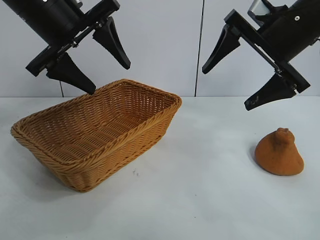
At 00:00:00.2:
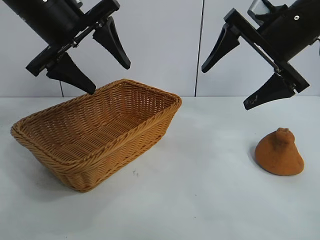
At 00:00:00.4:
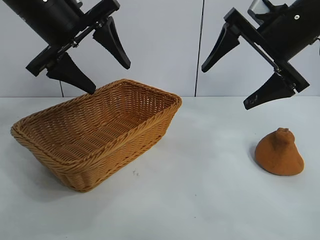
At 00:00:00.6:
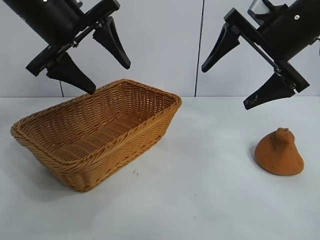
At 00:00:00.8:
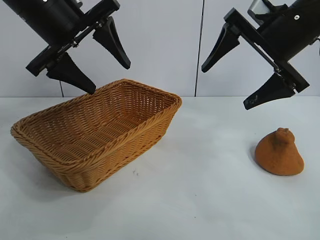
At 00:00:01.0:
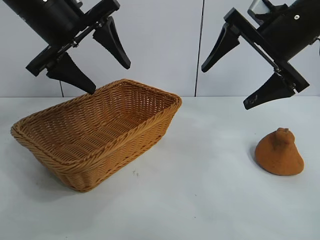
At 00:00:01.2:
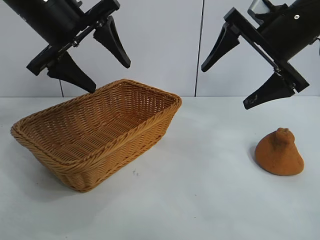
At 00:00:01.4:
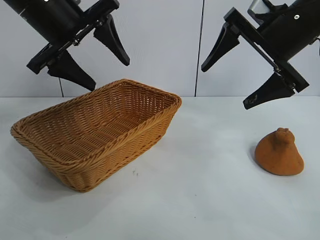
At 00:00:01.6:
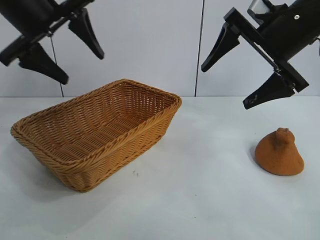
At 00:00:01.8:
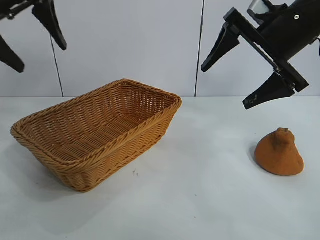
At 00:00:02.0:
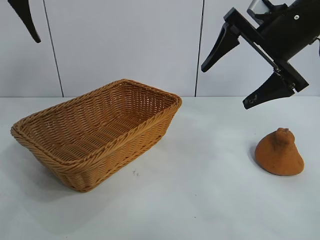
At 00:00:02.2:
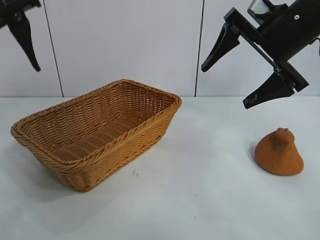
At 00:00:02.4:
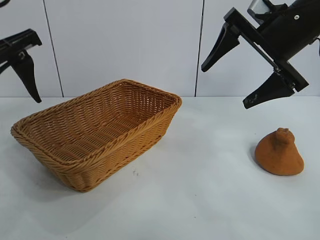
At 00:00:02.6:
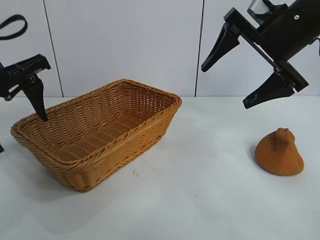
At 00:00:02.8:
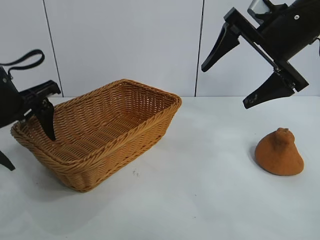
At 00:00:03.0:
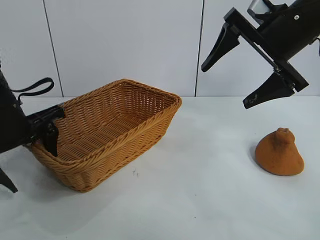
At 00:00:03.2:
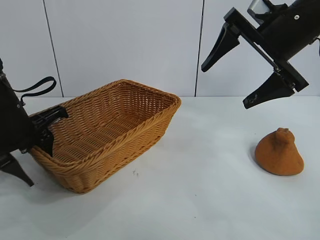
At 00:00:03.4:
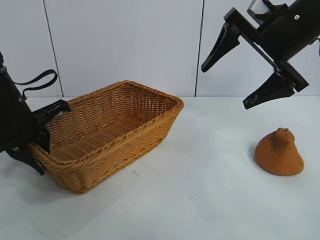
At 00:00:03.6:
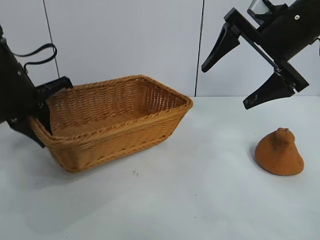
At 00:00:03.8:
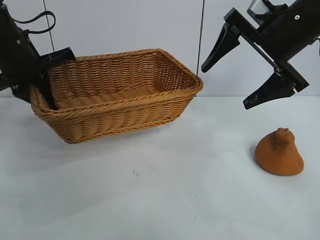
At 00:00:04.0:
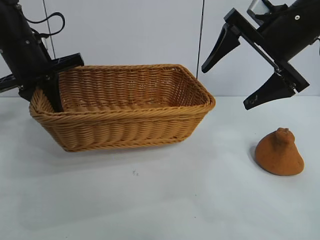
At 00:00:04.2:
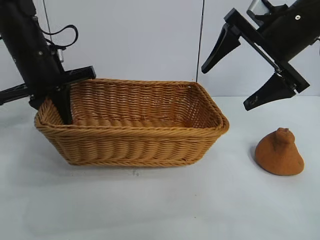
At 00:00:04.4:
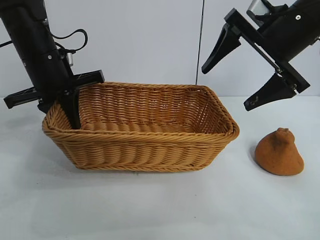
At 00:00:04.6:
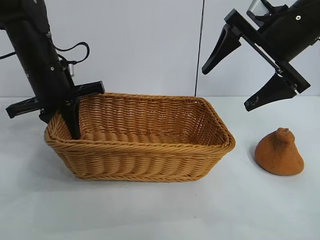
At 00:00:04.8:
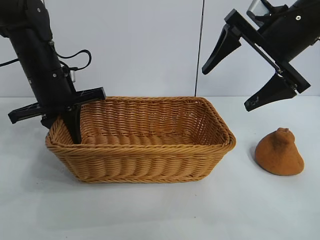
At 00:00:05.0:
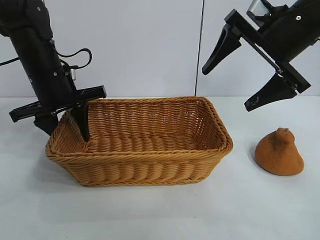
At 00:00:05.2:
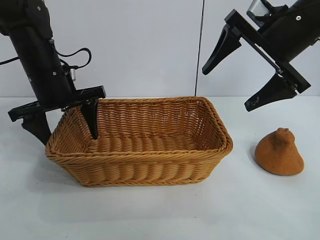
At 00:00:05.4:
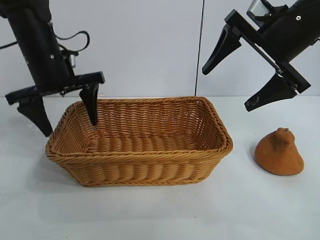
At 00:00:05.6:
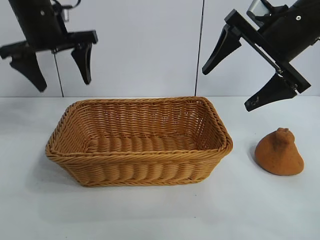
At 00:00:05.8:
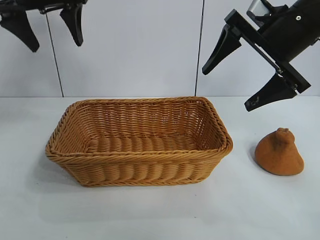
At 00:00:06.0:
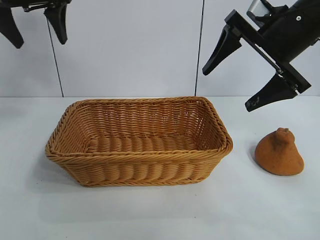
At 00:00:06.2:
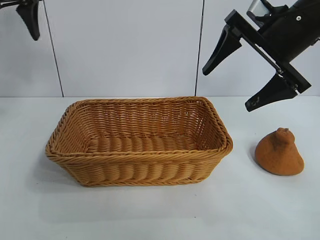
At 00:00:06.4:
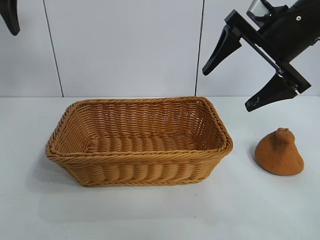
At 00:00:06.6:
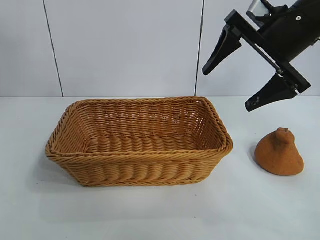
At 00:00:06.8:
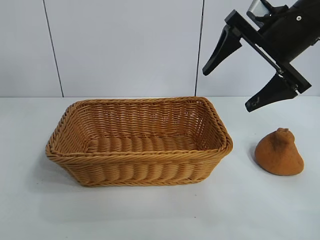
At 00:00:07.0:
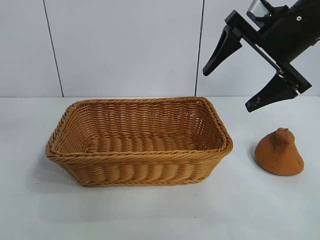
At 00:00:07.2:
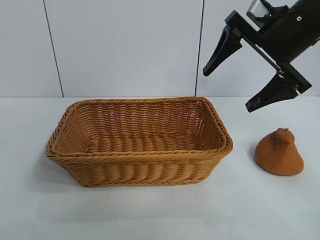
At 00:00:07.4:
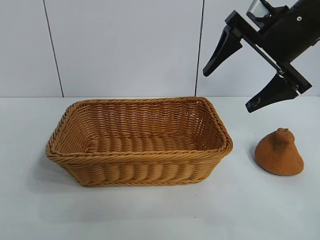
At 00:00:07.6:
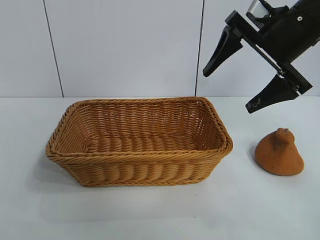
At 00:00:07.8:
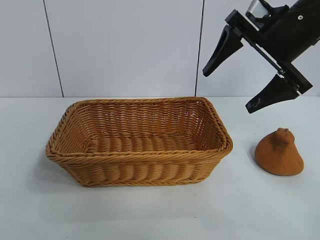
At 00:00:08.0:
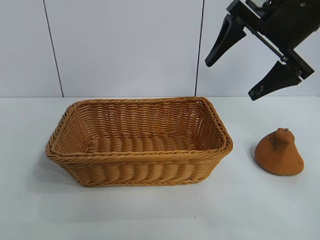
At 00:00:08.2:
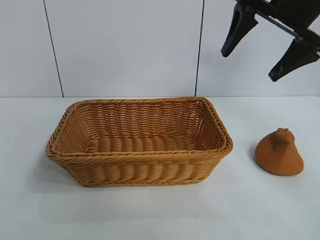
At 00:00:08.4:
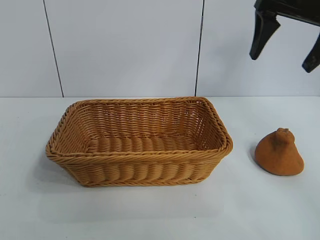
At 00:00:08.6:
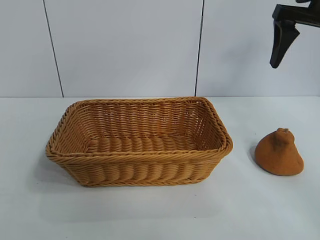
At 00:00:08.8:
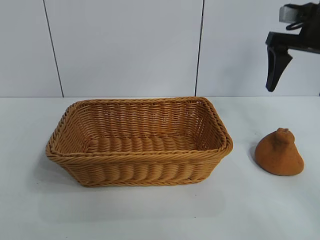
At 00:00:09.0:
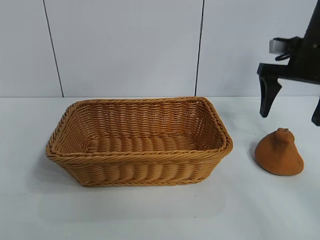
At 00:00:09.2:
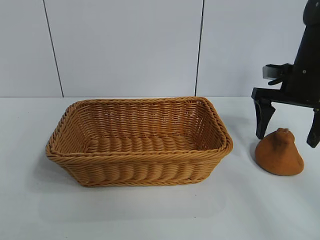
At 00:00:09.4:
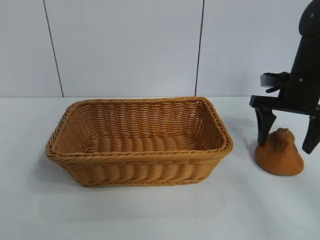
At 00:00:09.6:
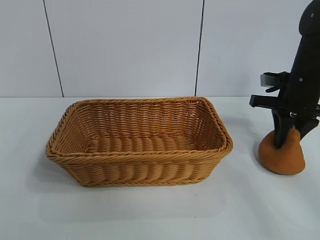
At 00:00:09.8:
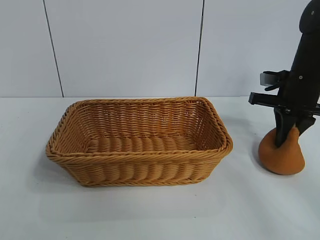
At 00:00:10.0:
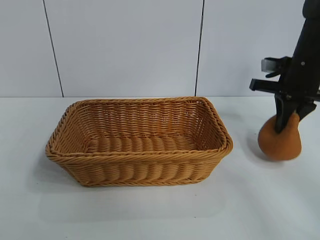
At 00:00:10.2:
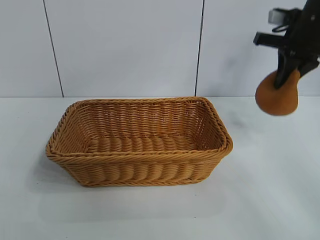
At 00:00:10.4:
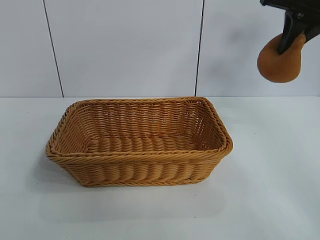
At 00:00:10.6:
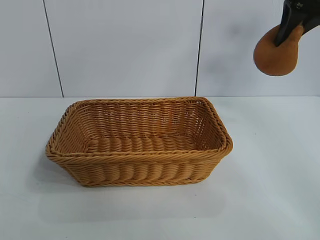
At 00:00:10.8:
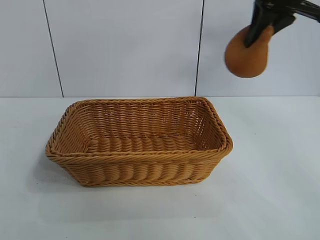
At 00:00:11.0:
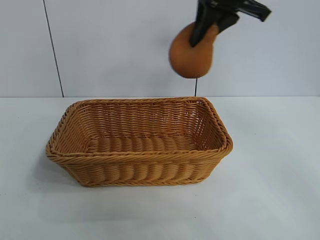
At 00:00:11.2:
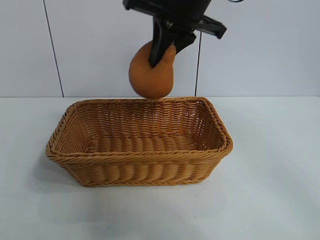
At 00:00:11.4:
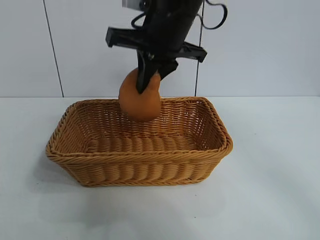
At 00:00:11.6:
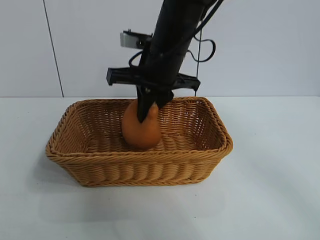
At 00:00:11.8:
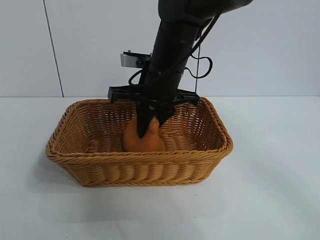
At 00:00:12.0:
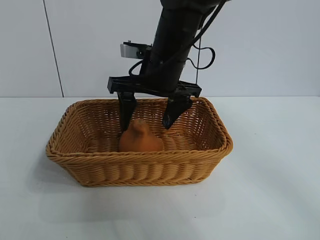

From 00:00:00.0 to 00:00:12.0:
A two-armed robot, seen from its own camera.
Task of the whole recording: pick up the orange and put it into the basket.
Step, from 00:00:01.0 to 00:00:03.2: Grasp the basket with left gripper.
Step, from 00:00:03.4 to 00:00:05.0: Place the basket in the center of view with left gripper.
Step, from 00:00:05.2 to 00:00:09.4: Grasp the orange with right gripper.
